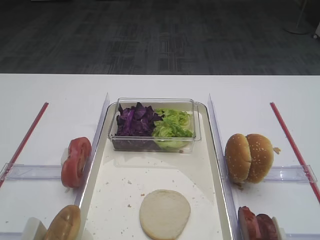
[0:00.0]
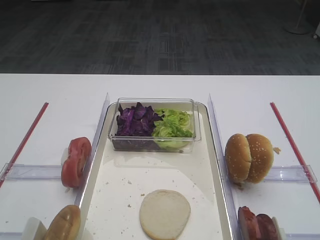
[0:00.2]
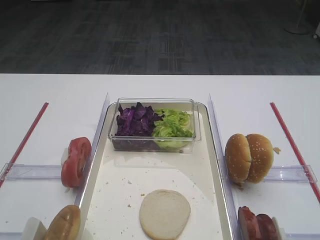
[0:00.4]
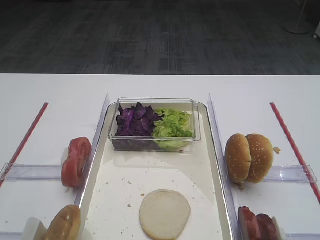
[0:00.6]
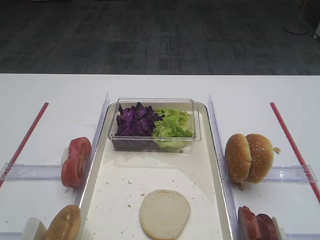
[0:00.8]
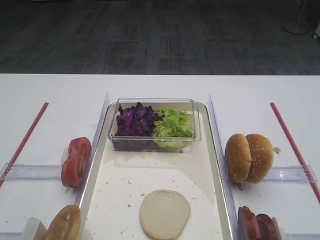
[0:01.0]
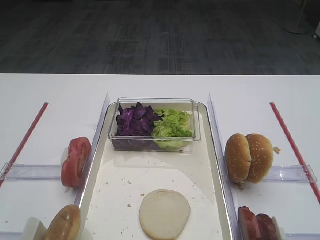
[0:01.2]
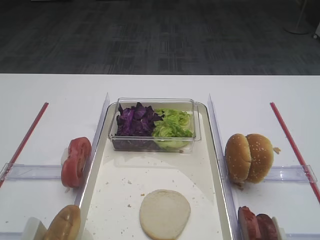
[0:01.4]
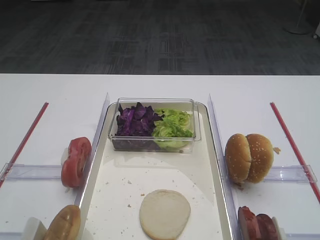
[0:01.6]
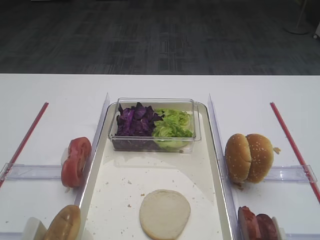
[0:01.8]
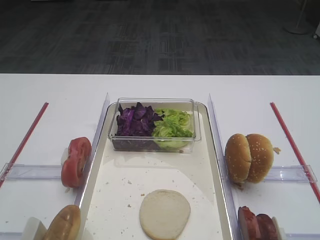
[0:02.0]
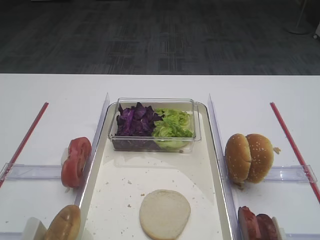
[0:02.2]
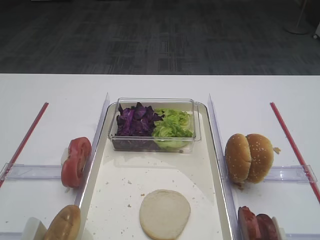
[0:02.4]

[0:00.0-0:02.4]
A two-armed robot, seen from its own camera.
0:00.0 to 0:02.4: Both grippers stay about where they are.

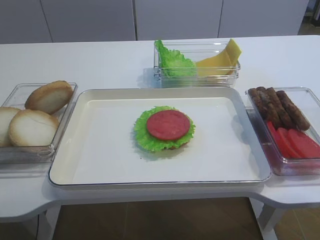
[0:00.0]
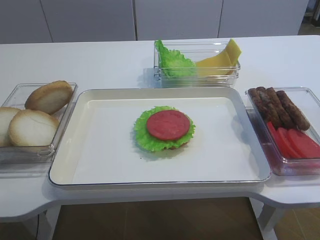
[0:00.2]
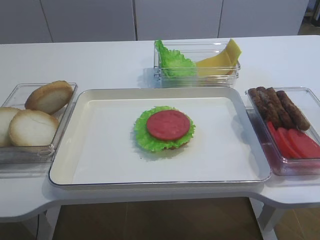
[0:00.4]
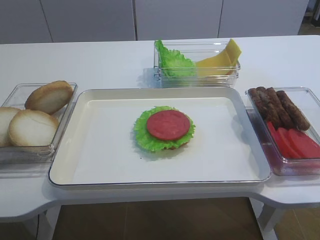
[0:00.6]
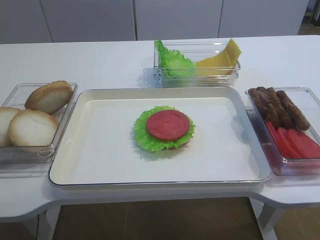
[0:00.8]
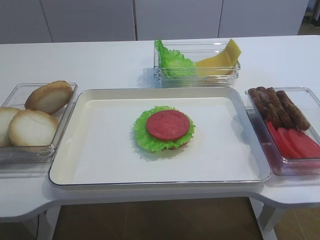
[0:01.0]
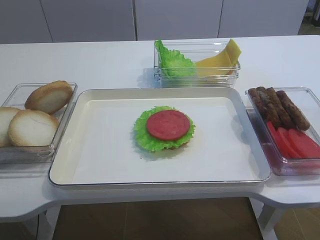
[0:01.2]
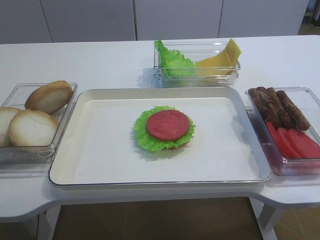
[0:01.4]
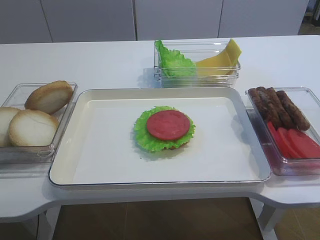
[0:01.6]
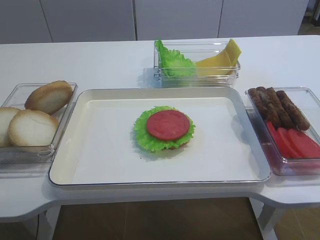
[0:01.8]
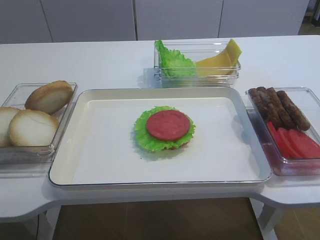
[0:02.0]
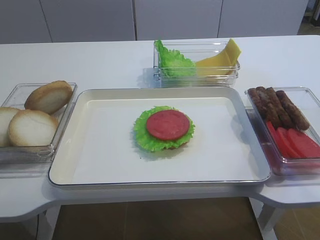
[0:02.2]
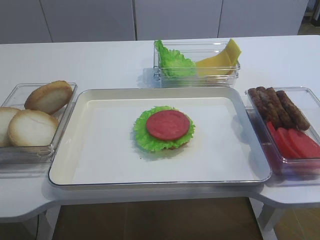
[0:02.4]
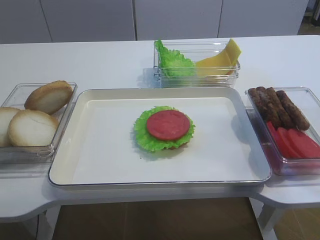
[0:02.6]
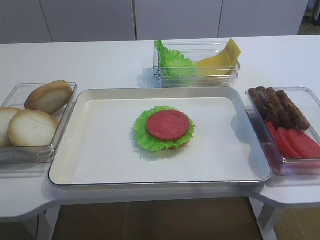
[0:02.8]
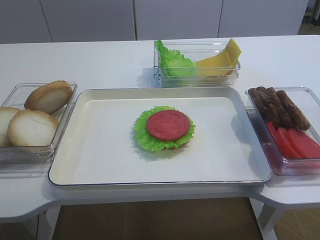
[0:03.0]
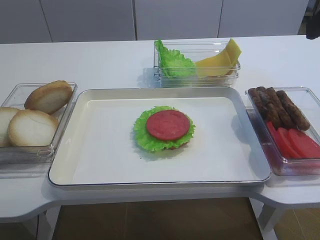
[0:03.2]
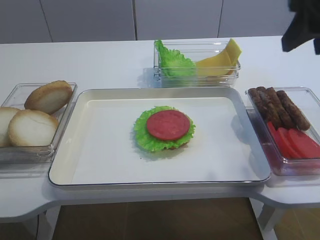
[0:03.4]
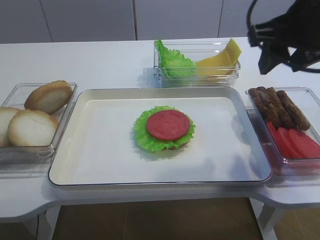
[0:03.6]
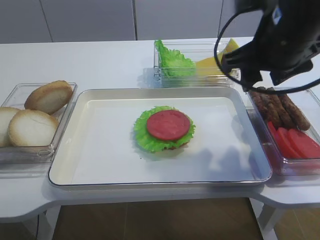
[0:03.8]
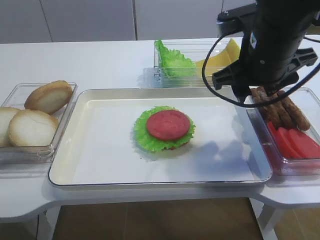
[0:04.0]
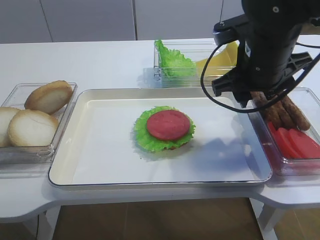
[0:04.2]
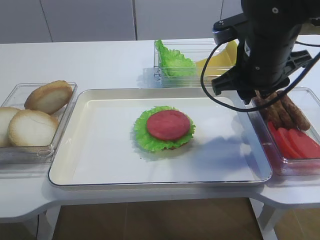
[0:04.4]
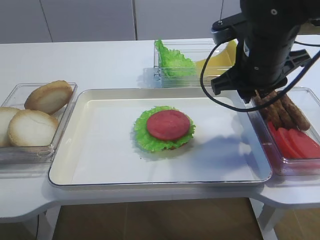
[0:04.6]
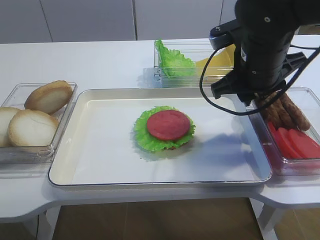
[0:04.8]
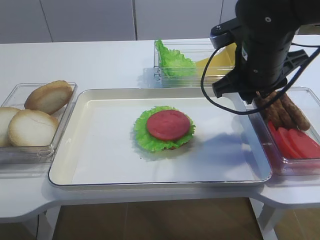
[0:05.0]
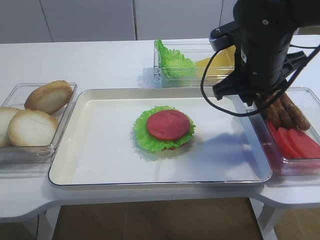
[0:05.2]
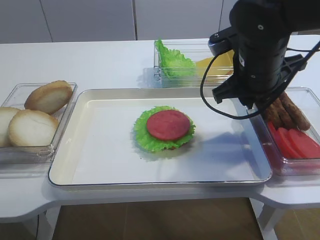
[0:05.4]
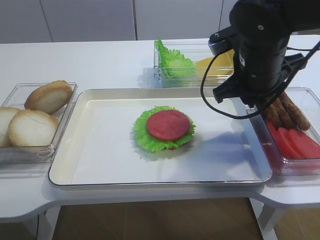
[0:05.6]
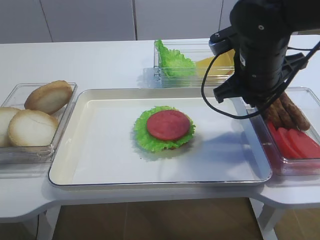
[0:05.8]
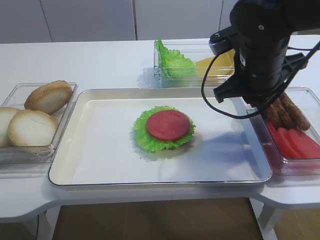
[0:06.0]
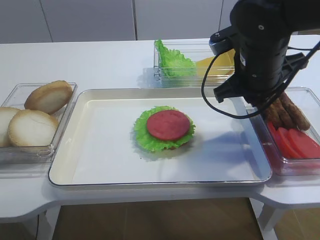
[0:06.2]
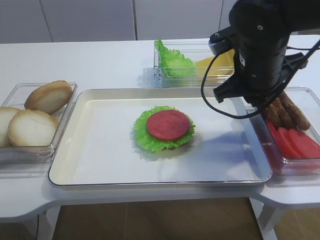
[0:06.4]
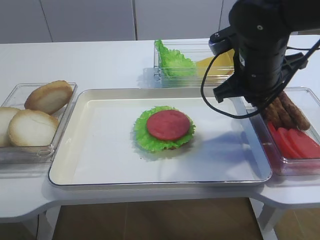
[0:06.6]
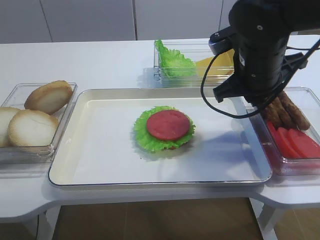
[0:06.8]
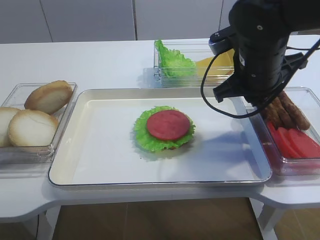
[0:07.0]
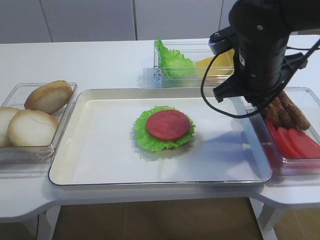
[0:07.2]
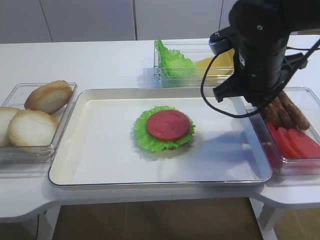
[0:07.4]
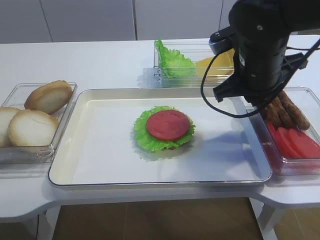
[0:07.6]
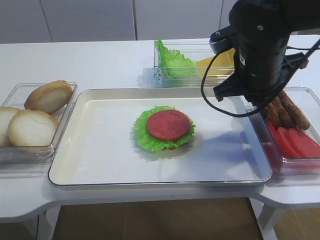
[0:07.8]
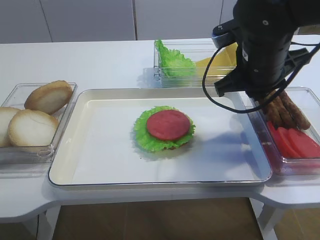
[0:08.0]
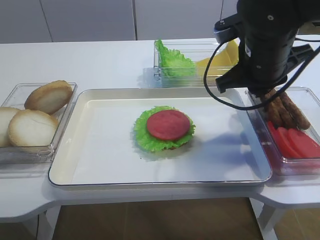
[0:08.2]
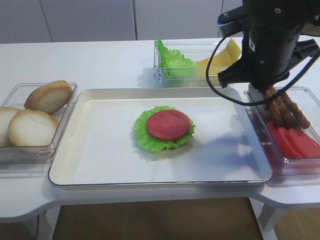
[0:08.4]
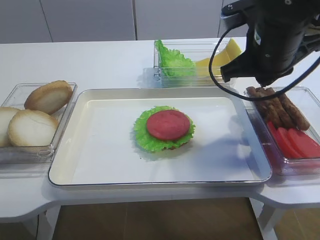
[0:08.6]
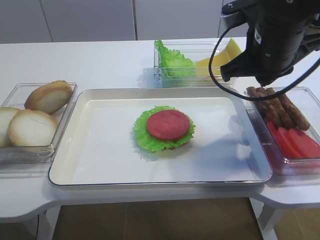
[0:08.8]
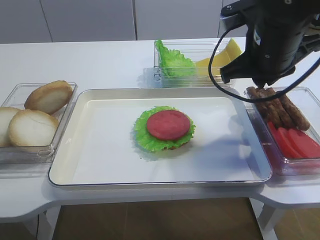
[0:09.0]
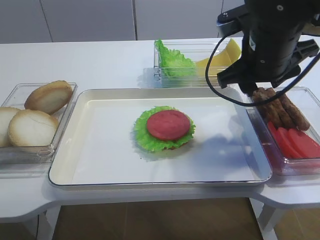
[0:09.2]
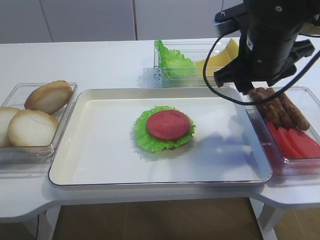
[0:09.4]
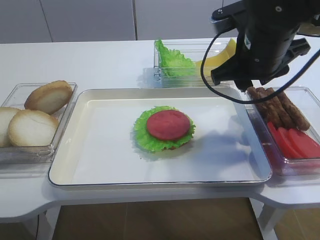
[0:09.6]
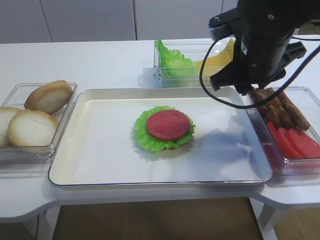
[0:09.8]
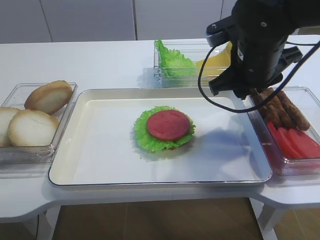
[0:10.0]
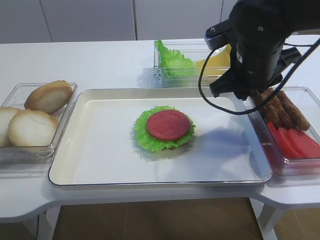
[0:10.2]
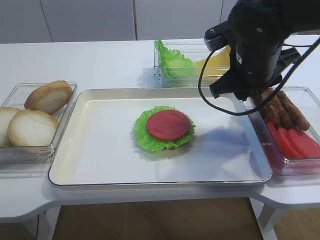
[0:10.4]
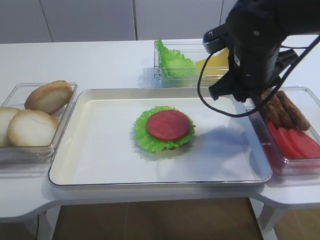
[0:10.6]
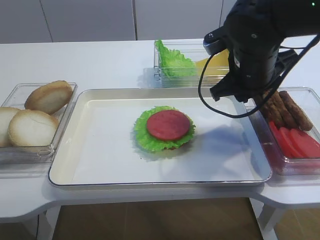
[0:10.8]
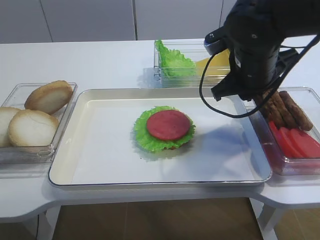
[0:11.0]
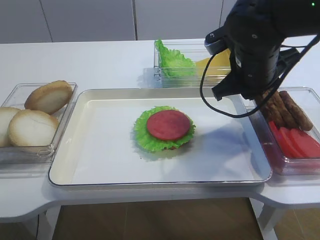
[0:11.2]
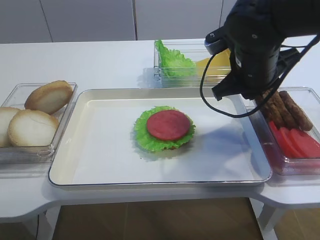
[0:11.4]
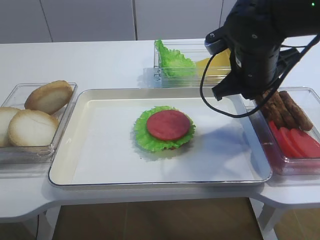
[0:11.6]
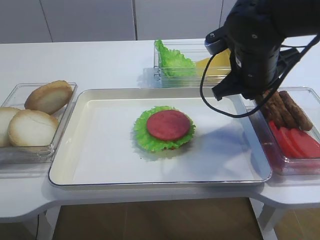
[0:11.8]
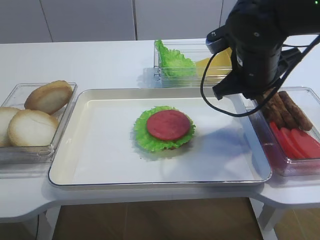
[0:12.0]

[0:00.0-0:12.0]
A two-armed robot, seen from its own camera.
0:01.6 to 0:03.0: The right gripper goes about 20 cm forward and upward.
0:03.0 to 0:04.4: The right gripper travels downward, forward and to the left by some 20 cm, and closes up.
0:04.4 to 0:06.0: The grippers make only small movements.
0:06.0 to 0:07.6: The two grippers keep their place.
0:07.6 to 0:09.0: The grippers move only a little.
0:09.0 to 0:10.4: The right gripper opens.
0:10.4 to 0:12.0: The right gripper closes up.

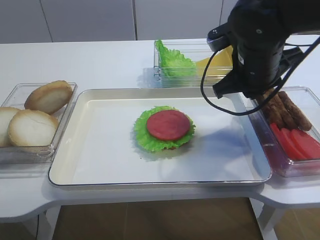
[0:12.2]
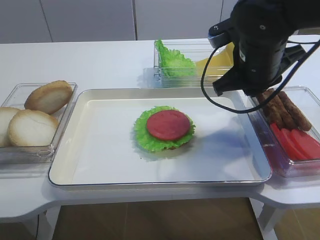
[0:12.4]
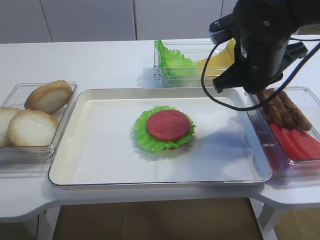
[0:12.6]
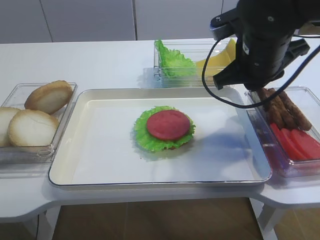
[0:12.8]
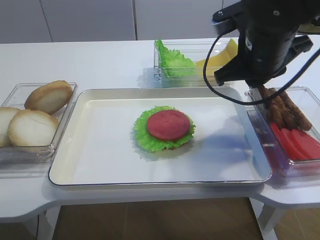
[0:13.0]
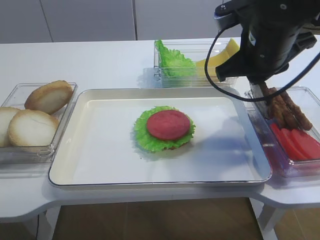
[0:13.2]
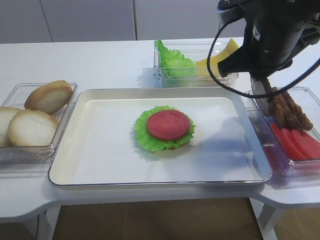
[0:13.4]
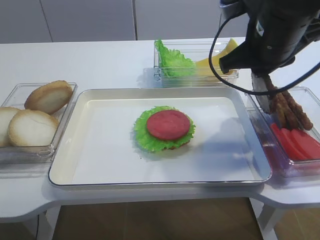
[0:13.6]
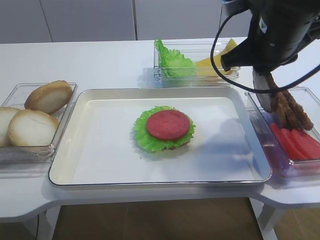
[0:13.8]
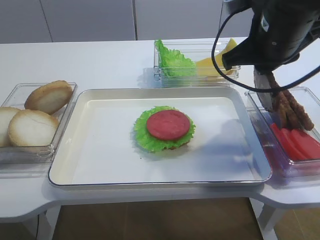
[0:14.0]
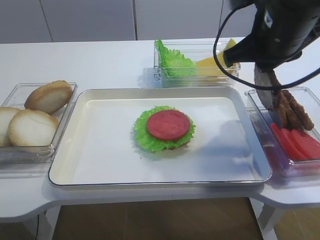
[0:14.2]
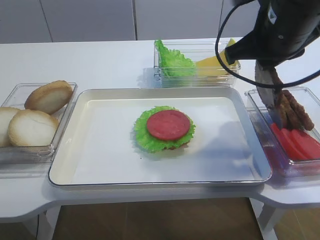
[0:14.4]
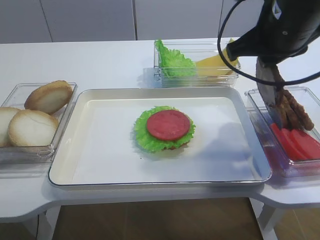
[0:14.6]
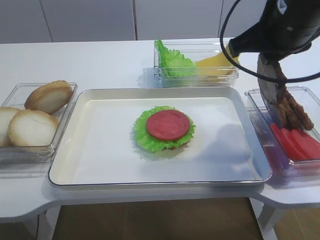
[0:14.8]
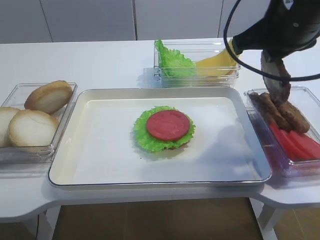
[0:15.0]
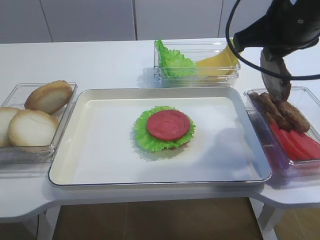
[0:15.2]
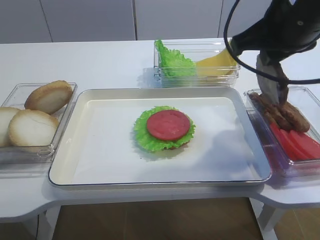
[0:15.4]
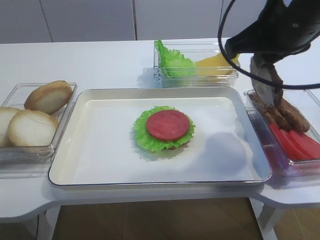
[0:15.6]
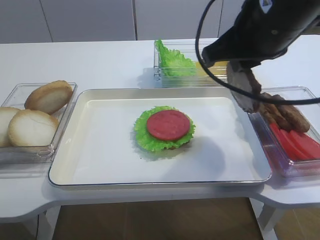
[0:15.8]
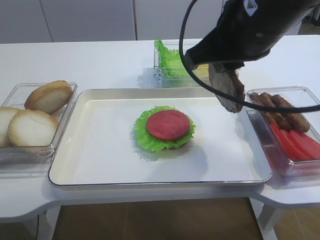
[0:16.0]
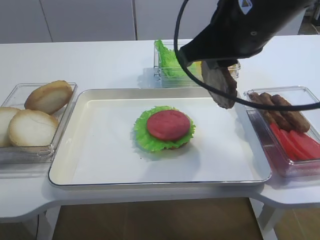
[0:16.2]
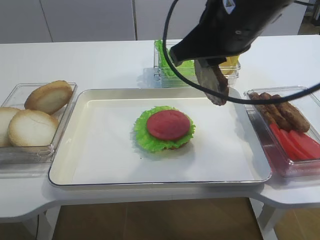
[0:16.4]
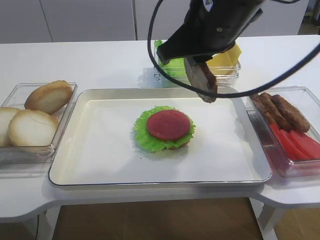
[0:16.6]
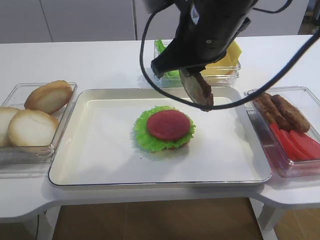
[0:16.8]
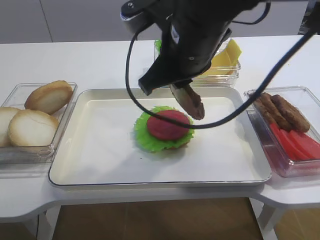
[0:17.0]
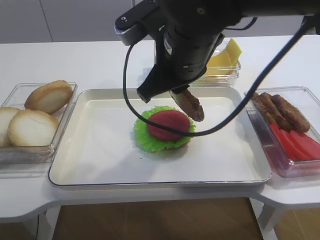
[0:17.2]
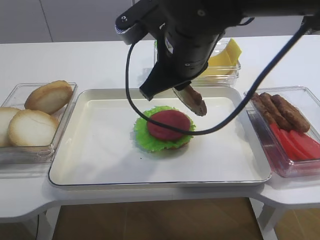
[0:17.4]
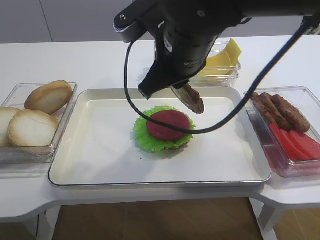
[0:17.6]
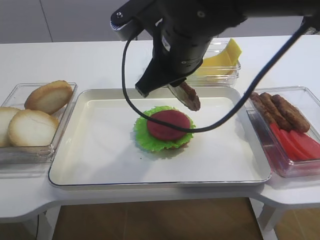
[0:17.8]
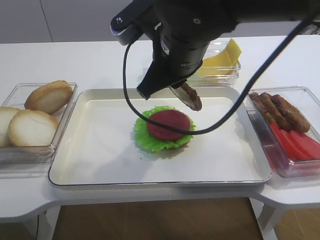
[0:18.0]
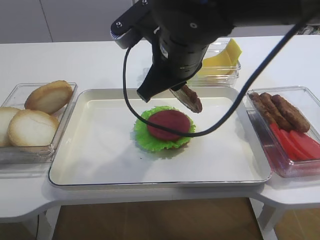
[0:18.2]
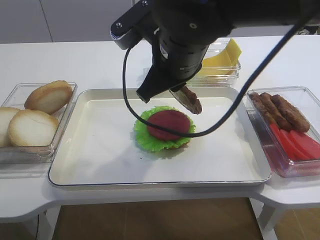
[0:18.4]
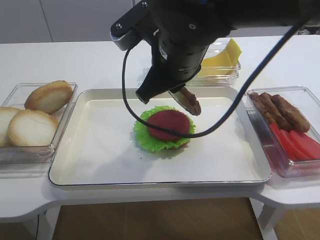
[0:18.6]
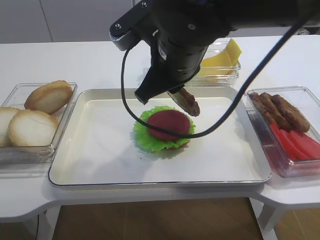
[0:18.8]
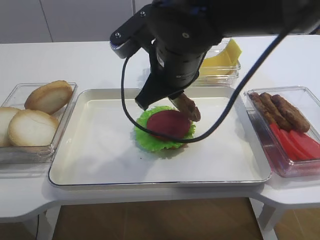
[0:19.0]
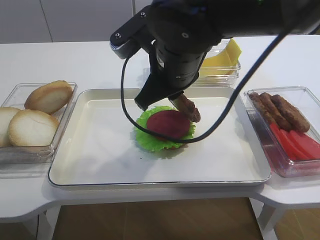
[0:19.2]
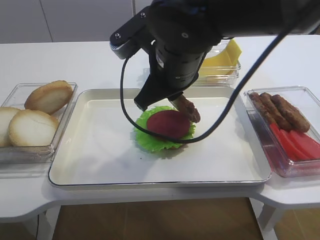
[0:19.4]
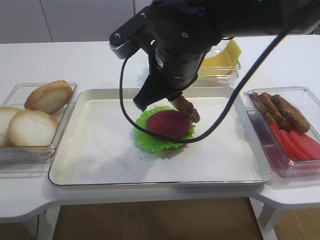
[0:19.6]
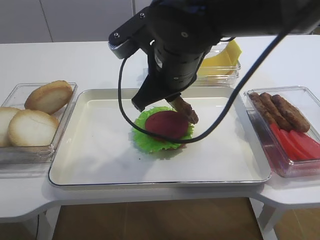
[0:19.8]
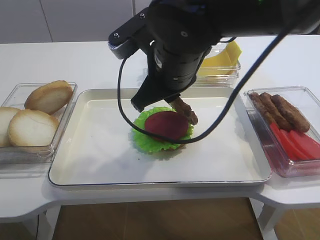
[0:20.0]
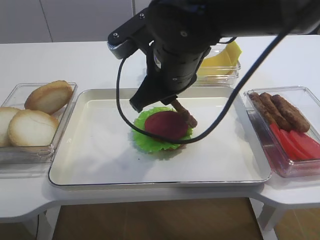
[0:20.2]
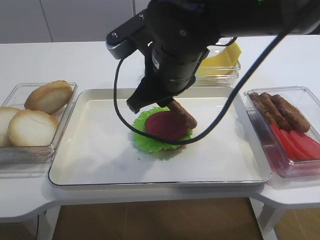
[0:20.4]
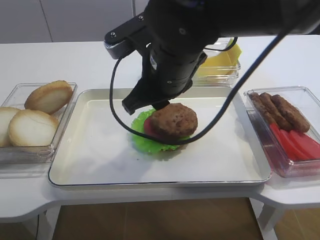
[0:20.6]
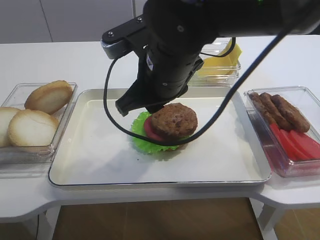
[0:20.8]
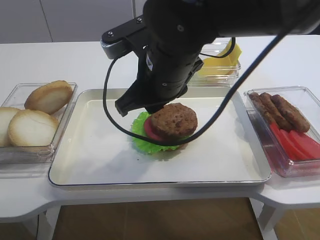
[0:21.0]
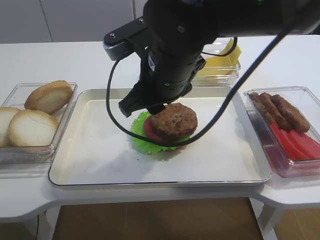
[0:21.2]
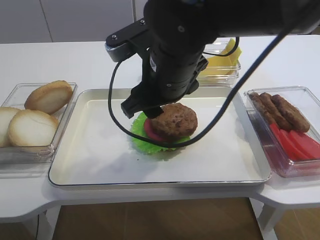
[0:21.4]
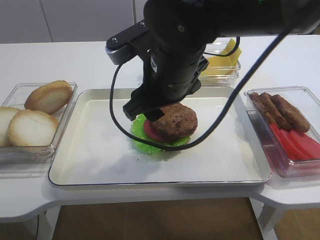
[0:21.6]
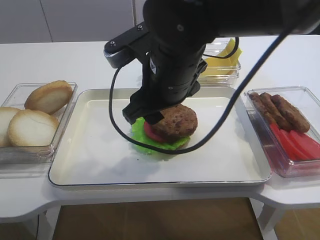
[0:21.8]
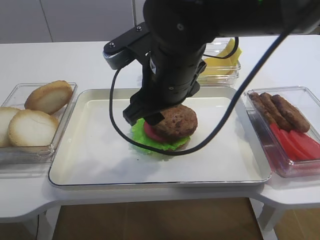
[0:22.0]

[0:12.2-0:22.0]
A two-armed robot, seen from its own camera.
Step, 0:12.2 to 0:15.8: Pick up the cutlet with the right gripper.
0:12.2 to 0:13.6: The right gripper shifts by roughly 5 cm.
0:13.6 to 0:15.0: The grippers make only small movements.
0:15.0 to 0:16.4: The right gripper shifts some 5 cm to the left.
0:16.4 to 0:17.8: The right gripper is displaced to the left by approximately 5 cm.
0:17.8 to 0:20.6: The grippers move only a little.
0:20.6 to 0:22.0: The right gripper opens.
